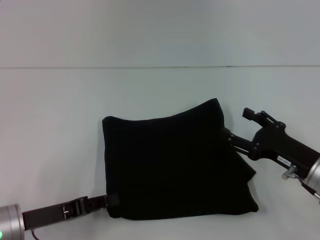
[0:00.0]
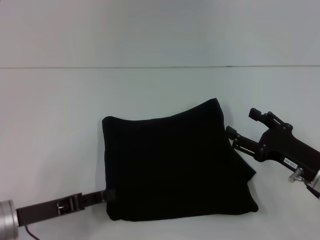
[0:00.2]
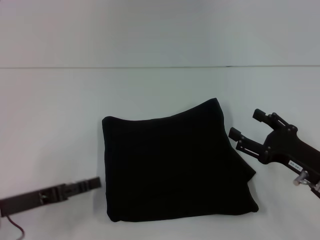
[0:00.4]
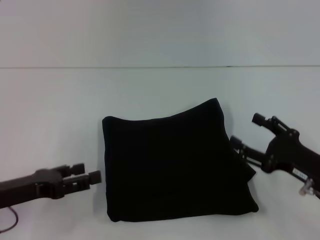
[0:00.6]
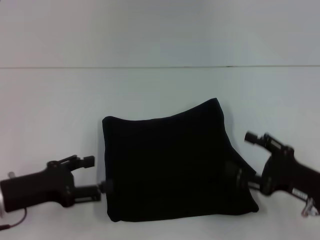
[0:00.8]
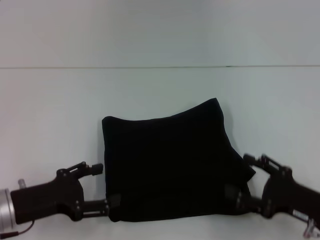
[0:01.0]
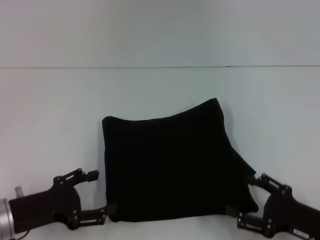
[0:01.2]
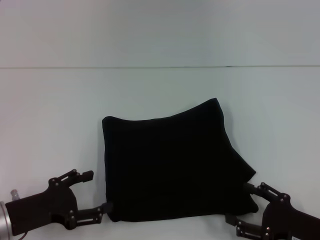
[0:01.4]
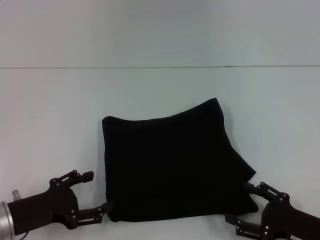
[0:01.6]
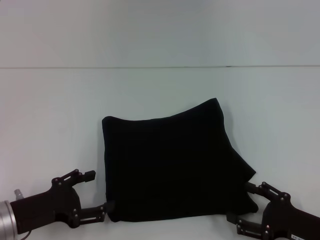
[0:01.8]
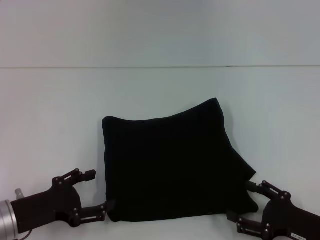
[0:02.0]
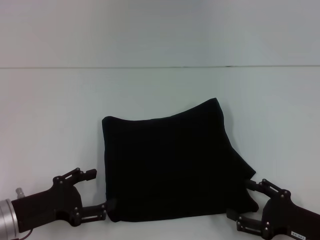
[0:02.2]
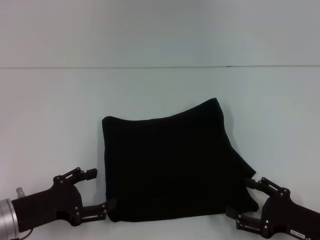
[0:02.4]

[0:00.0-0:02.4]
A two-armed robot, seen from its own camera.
0:00.0 to 0:01.2: The right gripper goes roughly 10 cm backward; the left gripper opens its fingers.
0:01.2 to 0:02.4: There are only small adjustments of the grippers.

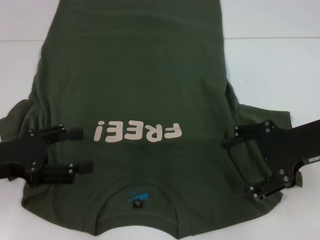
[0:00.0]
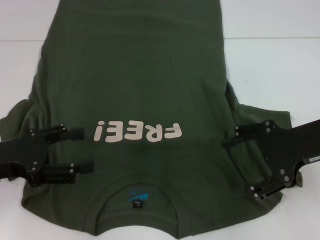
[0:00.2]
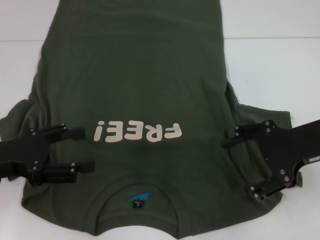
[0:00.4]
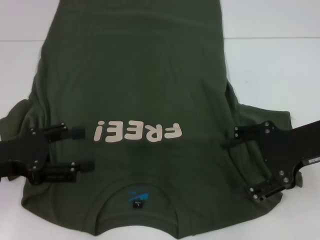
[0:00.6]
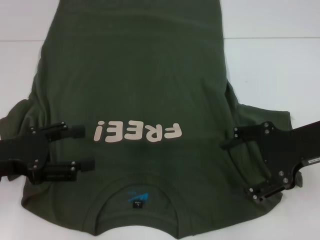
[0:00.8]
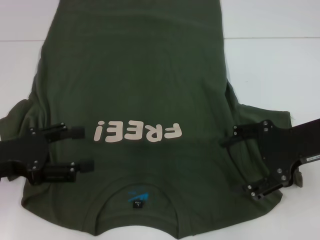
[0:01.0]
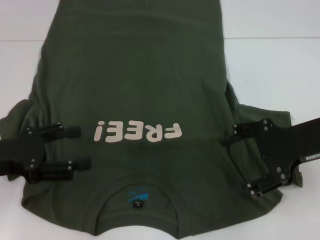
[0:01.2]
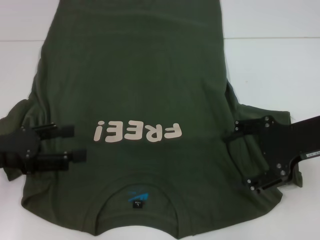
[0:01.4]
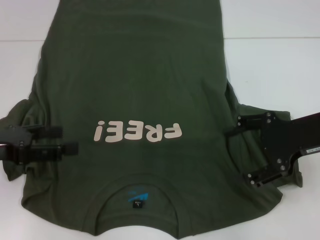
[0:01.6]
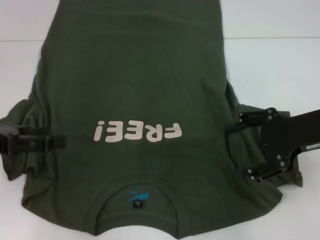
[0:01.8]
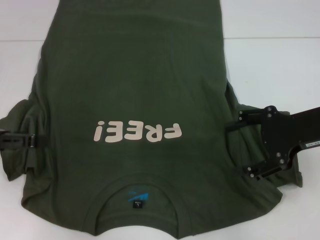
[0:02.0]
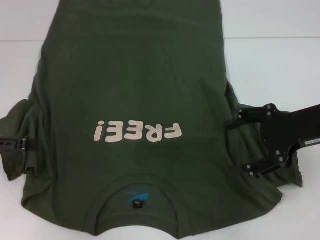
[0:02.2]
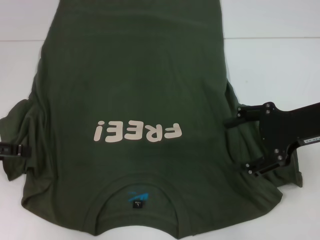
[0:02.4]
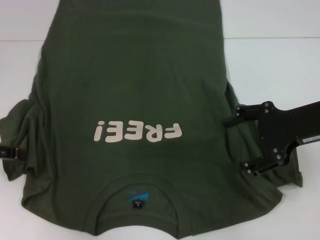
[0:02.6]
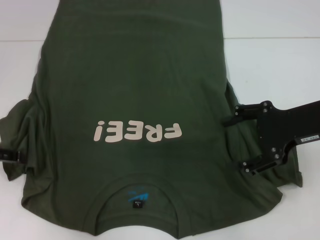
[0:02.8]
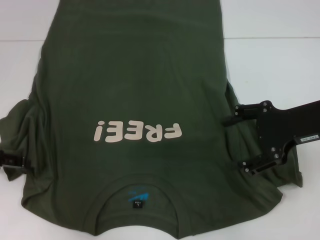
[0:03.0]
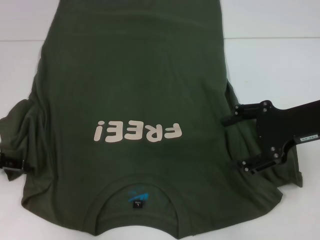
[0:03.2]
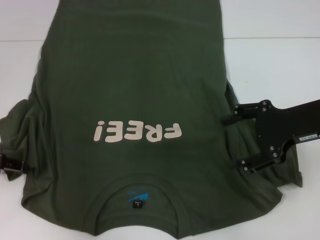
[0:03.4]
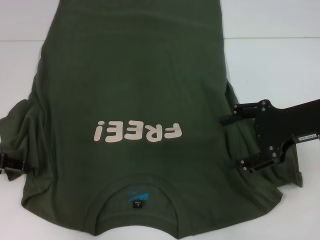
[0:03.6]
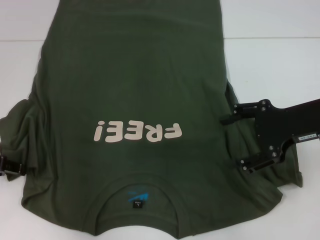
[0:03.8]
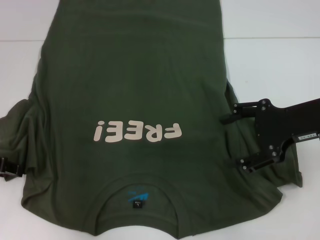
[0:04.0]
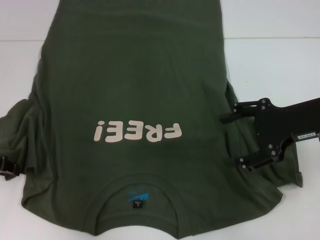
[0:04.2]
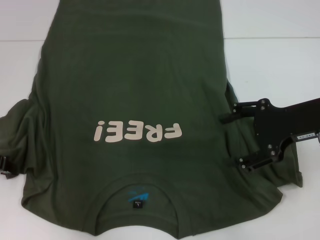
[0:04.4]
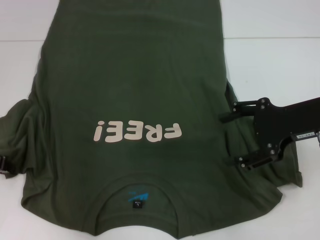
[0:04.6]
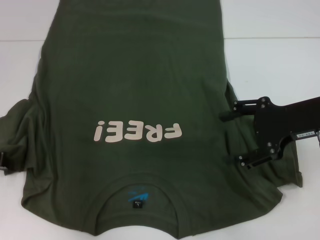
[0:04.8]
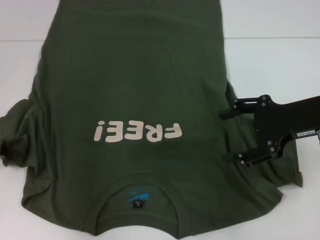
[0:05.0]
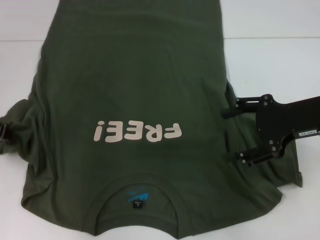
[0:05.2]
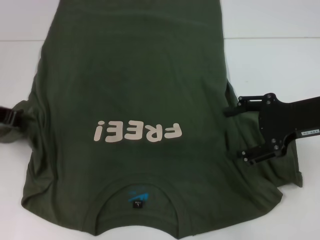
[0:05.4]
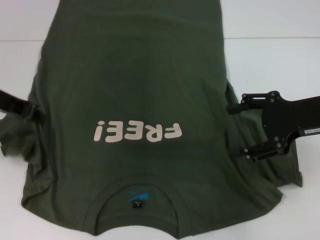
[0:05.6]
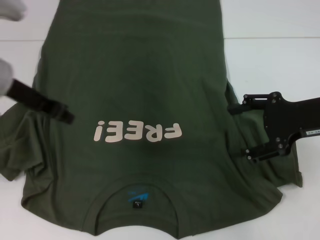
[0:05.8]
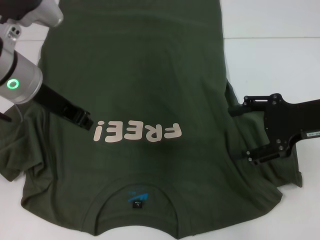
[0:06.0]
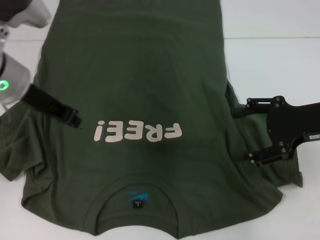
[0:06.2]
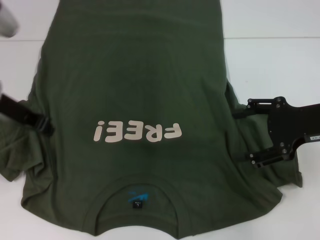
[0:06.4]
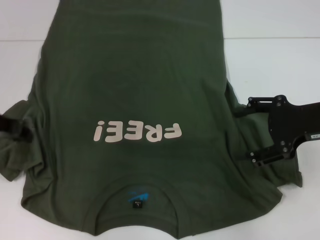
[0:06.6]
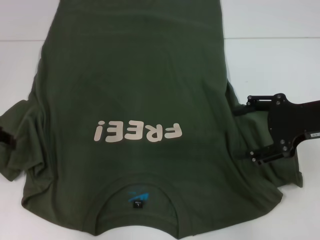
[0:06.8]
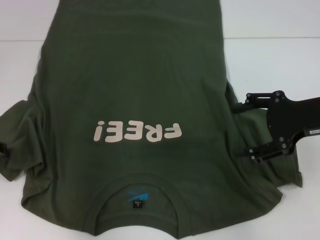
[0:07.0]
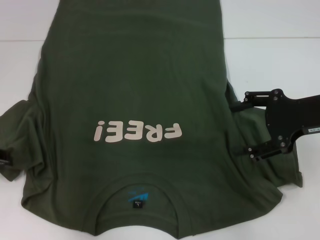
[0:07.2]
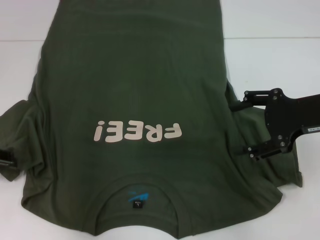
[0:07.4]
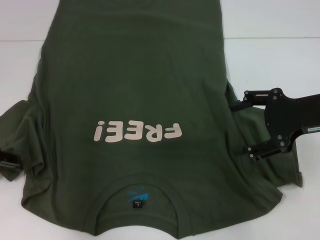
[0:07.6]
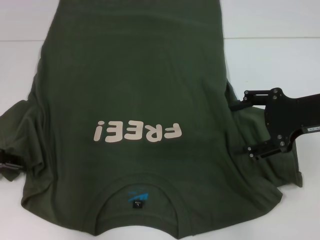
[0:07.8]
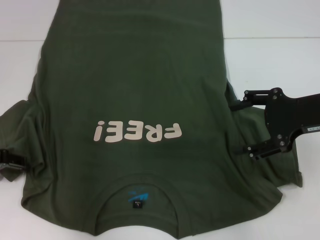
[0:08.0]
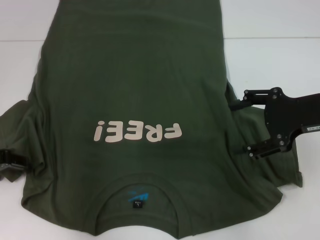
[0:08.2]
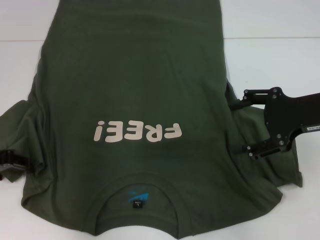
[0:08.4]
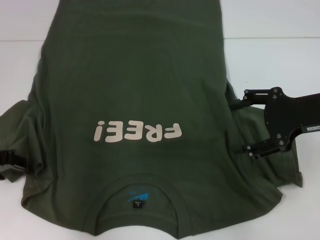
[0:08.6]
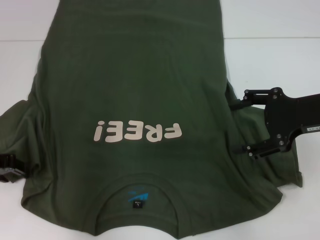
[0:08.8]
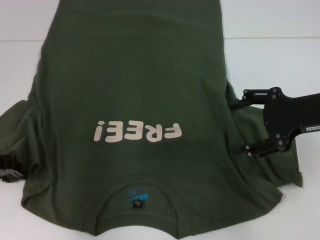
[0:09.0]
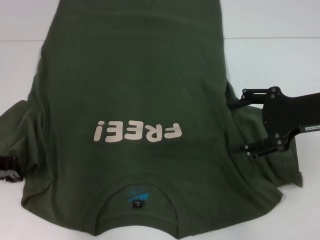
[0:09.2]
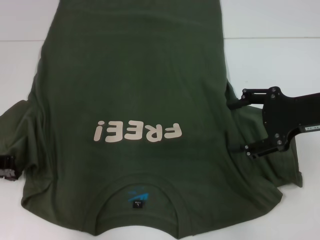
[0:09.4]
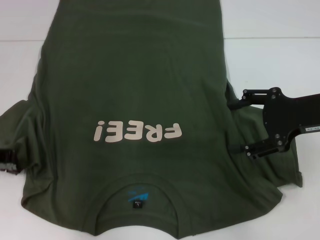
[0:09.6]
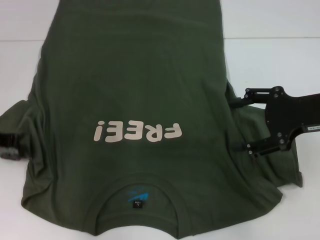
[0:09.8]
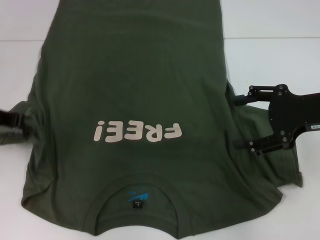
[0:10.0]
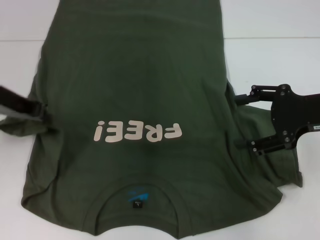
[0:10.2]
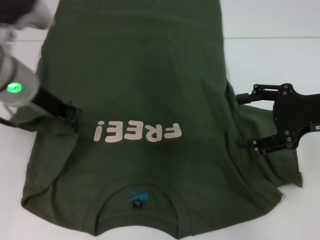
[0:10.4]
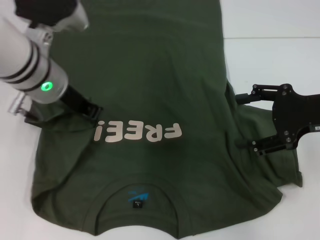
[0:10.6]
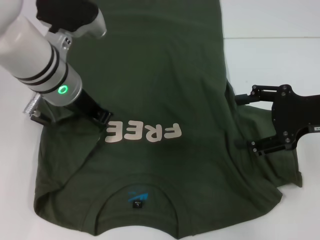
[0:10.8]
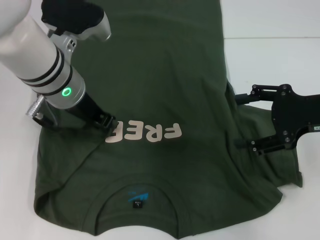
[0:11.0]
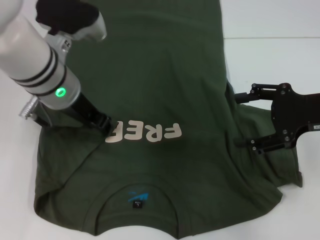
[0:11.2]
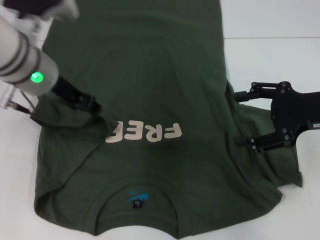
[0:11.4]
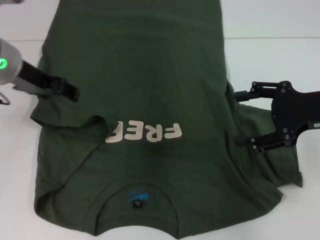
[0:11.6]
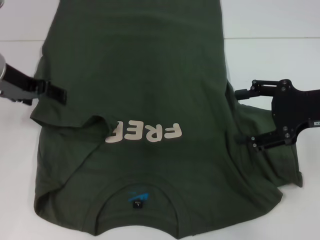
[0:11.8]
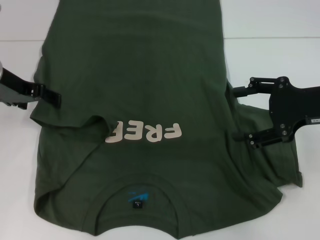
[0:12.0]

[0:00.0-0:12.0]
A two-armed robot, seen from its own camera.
0:01.6 to 0:03.0: The left gripper ends up roughly 5 cm from where it was.
0:04.4 to 0:06.0: The left gripper goes some 15 cm to the right, upward and forward.
0:06.0 to 0:07.6: The left gripper travels to the left, backward and downward by approximately 15 cm, and opens its fingers.
0:09.0 to 0:10.4: The left gripper heads to the right and upward, covering approximately 15 cm, and closes its fingers.
0:10.4 to 0:12.0: The left gripper is displaced to the left by about 5 cm, and opens.

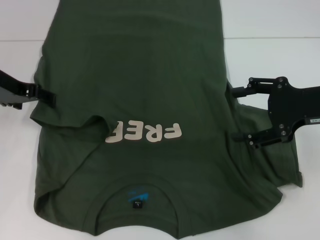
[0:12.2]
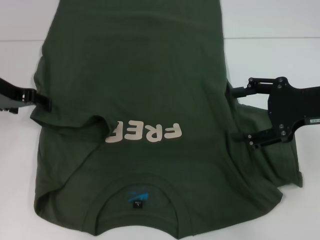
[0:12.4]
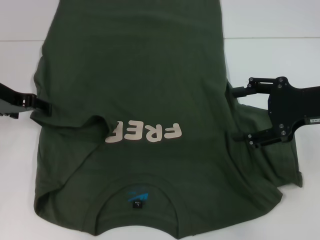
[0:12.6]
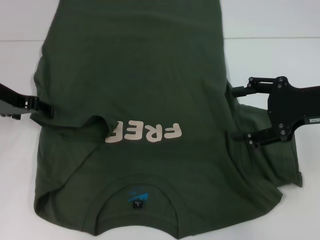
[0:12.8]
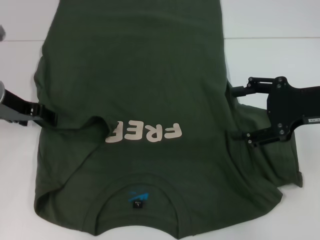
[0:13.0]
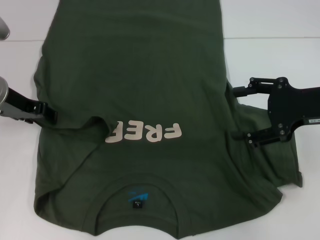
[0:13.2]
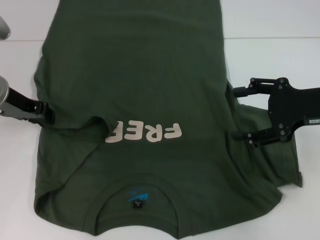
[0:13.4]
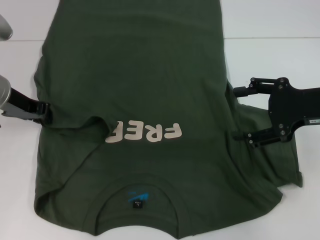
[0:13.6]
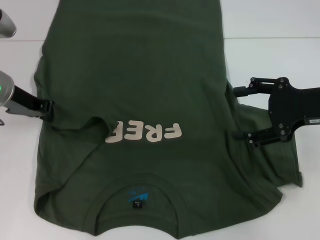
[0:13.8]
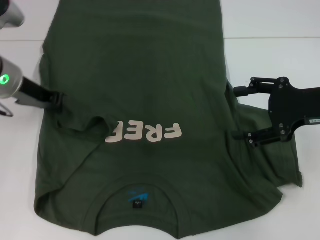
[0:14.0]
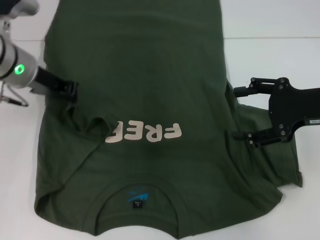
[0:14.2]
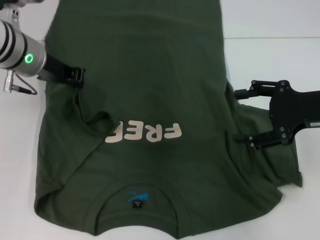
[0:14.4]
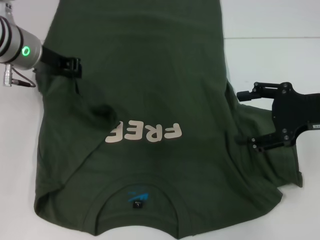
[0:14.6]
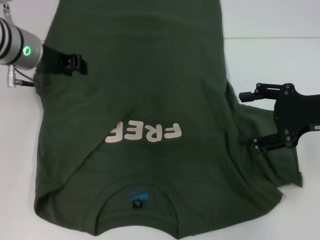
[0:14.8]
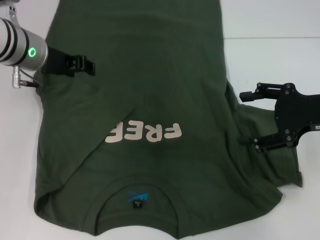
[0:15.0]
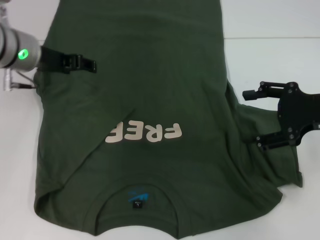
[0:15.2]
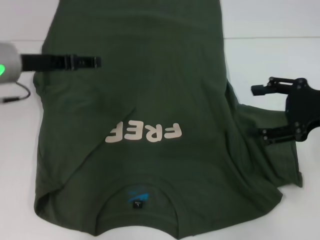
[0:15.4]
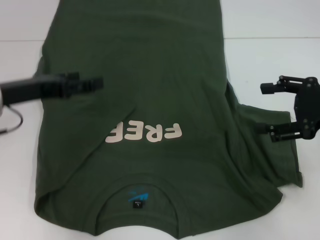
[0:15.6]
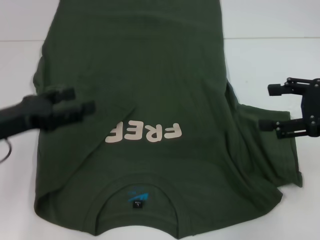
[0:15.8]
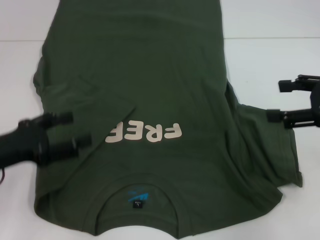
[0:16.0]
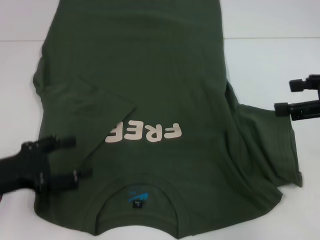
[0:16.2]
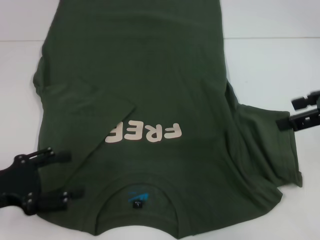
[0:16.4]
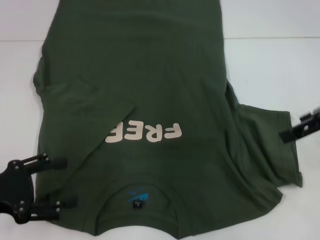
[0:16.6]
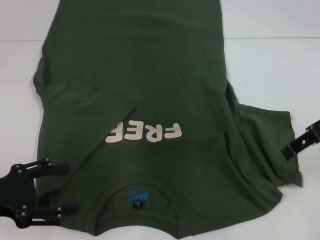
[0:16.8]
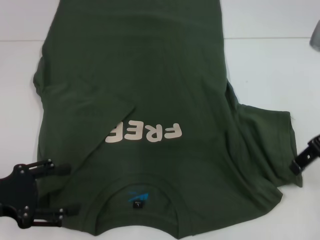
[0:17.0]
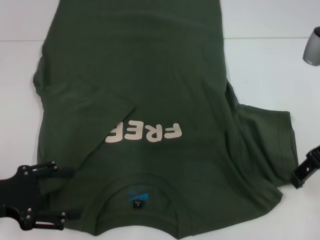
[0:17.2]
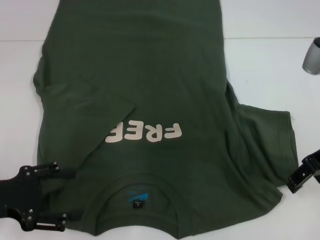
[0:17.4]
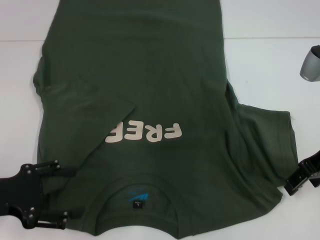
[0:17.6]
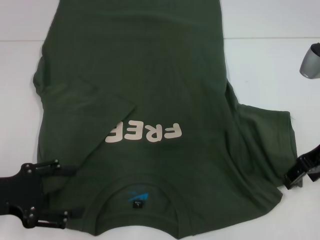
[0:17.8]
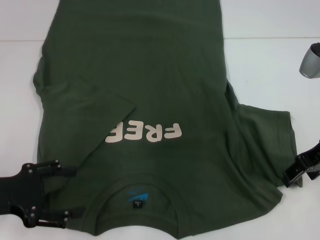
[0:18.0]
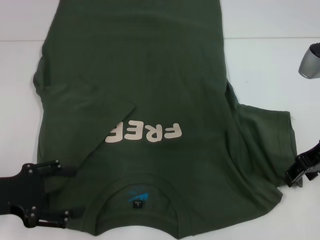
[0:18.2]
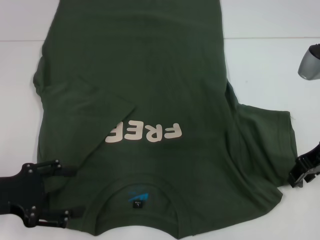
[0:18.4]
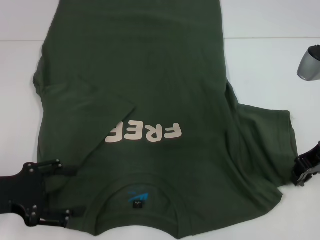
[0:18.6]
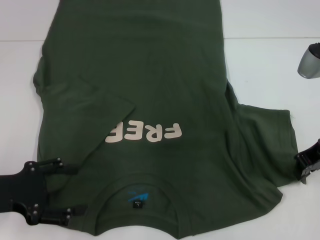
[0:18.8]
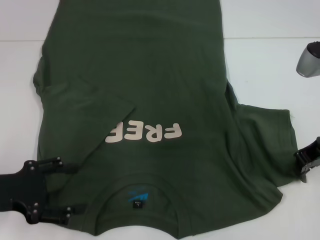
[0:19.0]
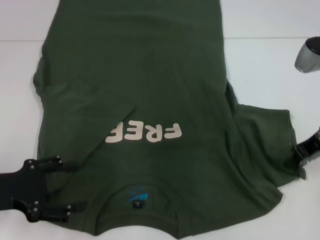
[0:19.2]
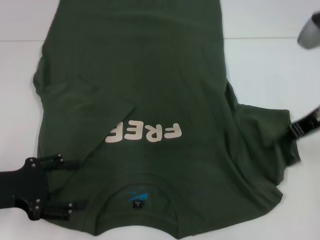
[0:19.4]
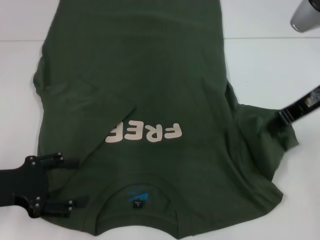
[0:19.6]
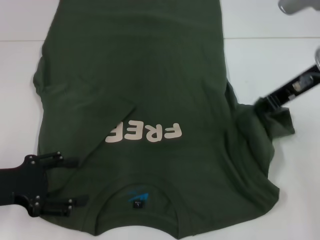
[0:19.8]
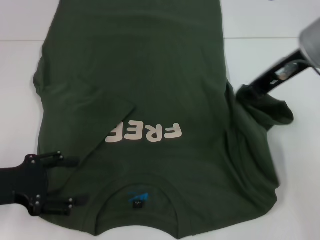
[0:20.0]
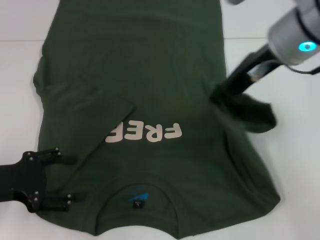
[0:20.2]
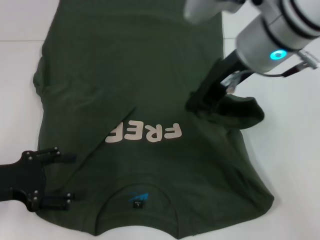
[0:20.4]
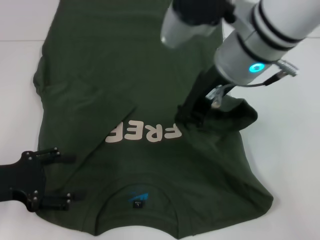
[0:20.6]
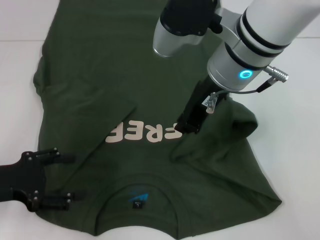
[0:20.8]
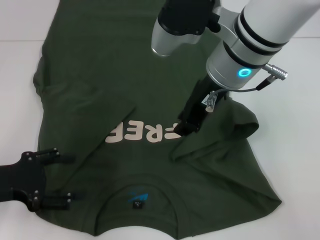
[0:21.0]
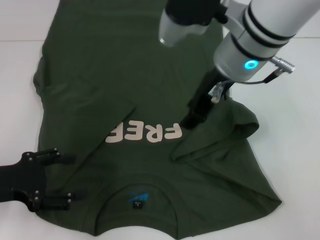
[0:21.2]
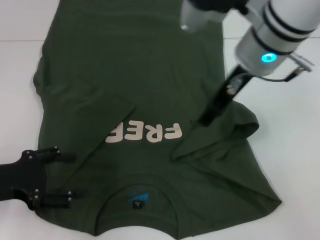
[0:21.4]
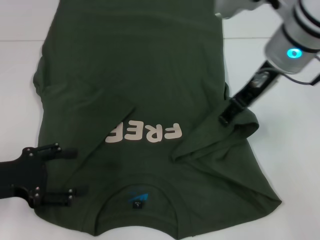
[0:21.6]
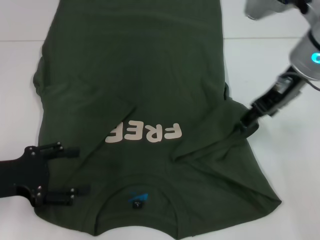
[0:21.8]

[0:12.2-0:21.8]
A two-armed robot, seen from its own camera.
Step, 0:12.2 to 0:15.0: Fold the bottom left sleeve with your left hand.
0:12.2 to 0:13.8: The left gripper closes up.
0:13.8 to 0:15.4: The left gripper opens.
0:15.4 to 0:17.0: The right gripper ends up some 5 cm from where it was, while the left gripper shifts approximately 20 cm backward, to the left and downward.
0:17.0 to 0:18.6: The right gripper travels downward by some 5 cm, and closes its fingers.
0:18.6 to 0:20.2: The right gripper is displaced to the left and upward by about 15 cm, and closes up.
0:20.2 to 0:21.8: The right gripper goes to the left and returns, roughly 5 cm each way, and opens up.
